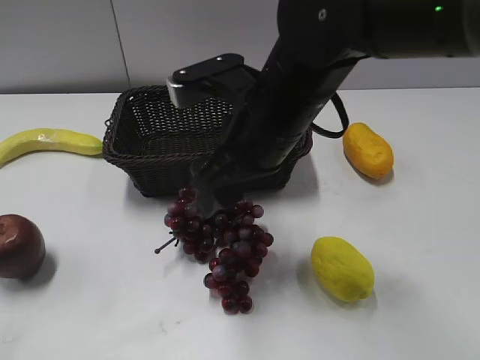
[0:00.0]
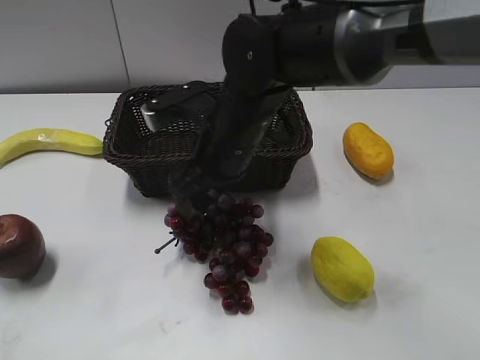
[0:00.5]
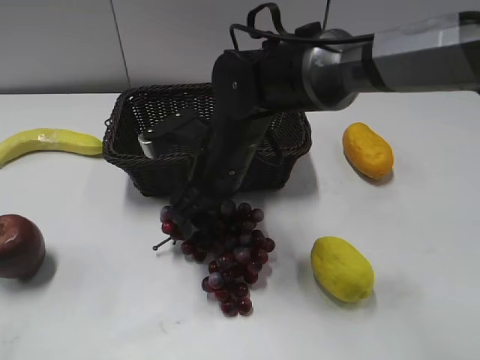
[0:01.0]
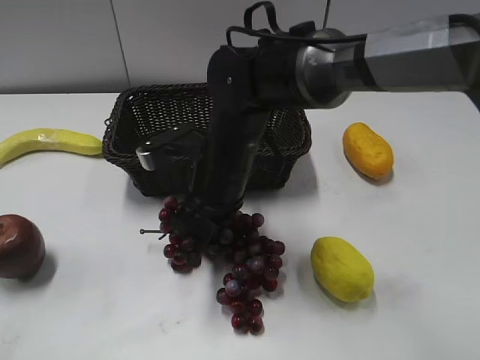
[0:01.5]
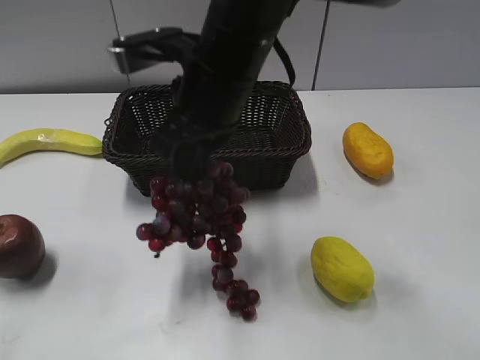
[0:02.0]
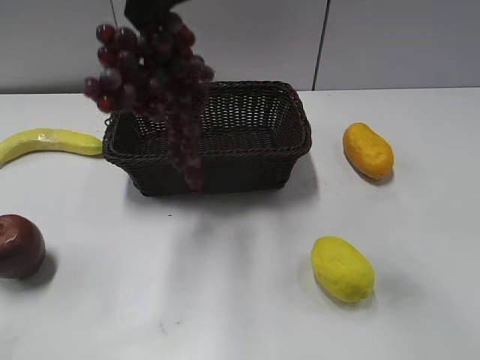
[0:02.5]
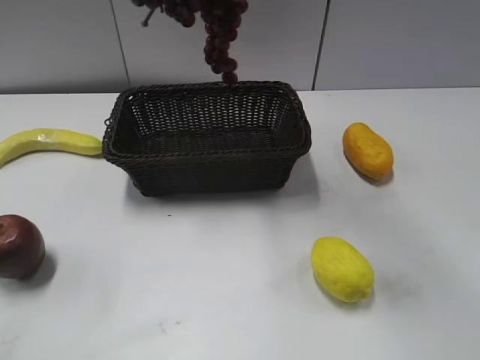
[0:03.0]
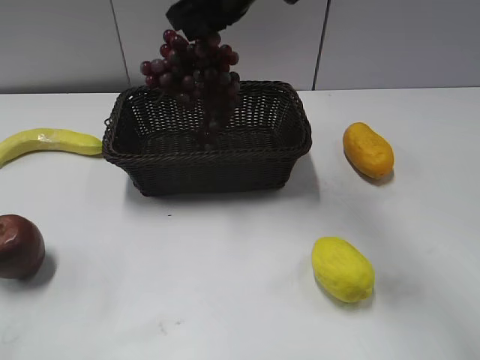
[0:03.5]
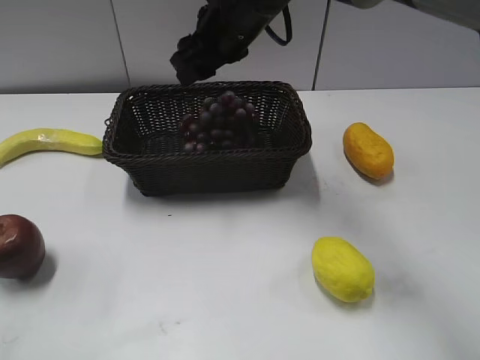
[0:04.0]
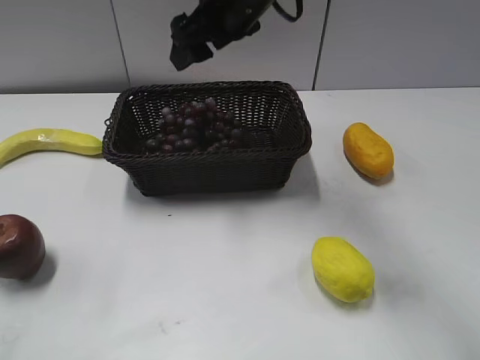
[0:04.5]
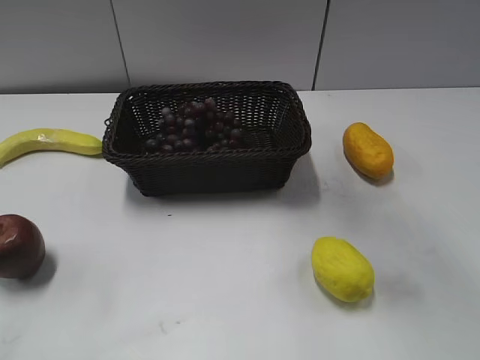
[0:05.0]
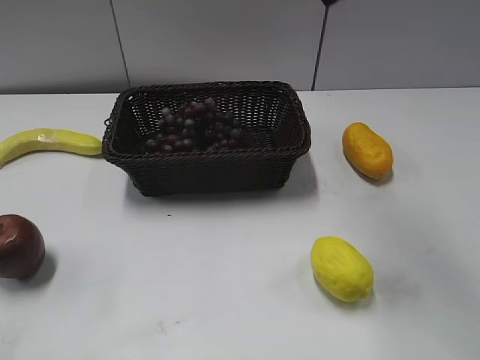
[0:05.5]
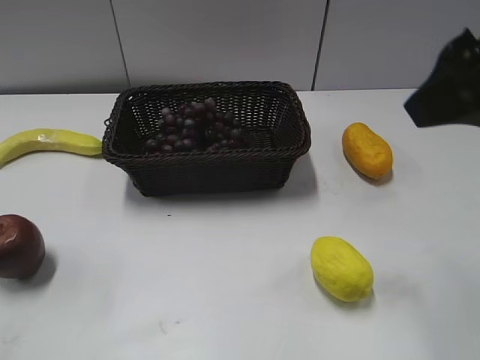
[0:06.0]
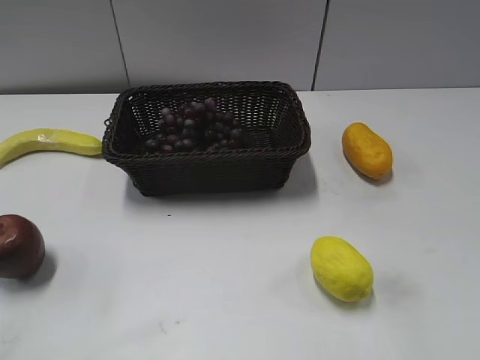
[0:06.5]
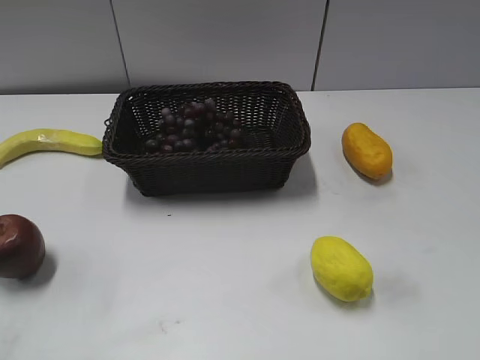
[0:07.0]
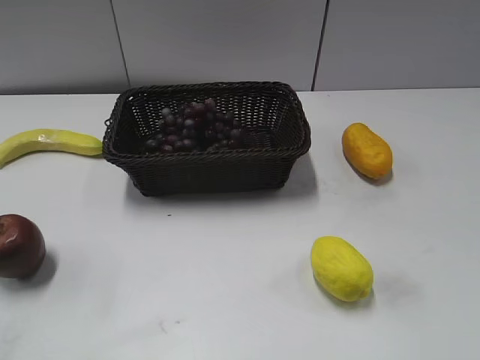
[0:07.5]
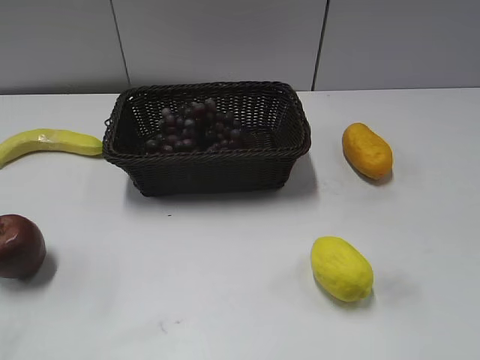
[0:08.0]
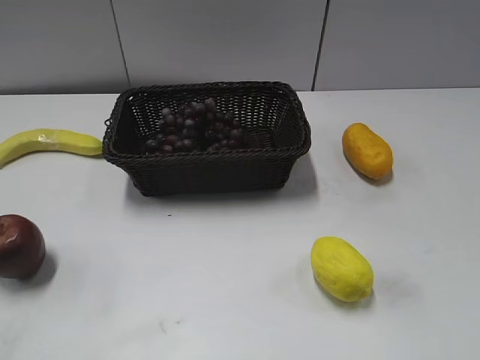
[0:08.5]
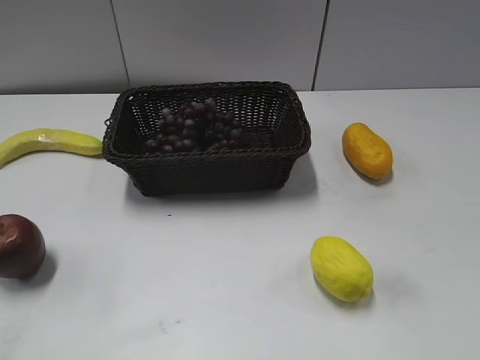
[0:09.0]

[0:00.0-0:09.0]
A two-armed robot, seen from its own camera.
Step, 0:02.0 to 0:04.0: Place the grape in the basket with right gripper.
0:00.0 to 0:02.0: The right gripper goes downward and returns, approximately 10 cm each way, and closes.
0:02.0 to 0:04.5: The right gripper goes up and down, roughly 15 cm each way, reversing 2 times, and opens.
0:04.5 to 0:07.0: The right gripper is displaced backward and to the right by roughly 50 cm.

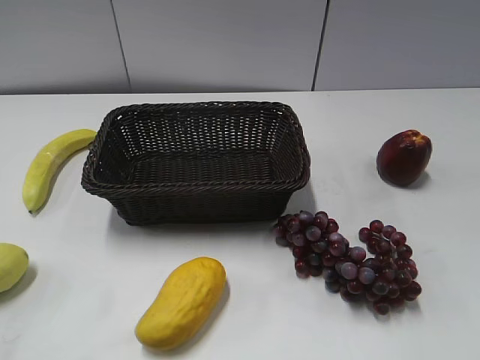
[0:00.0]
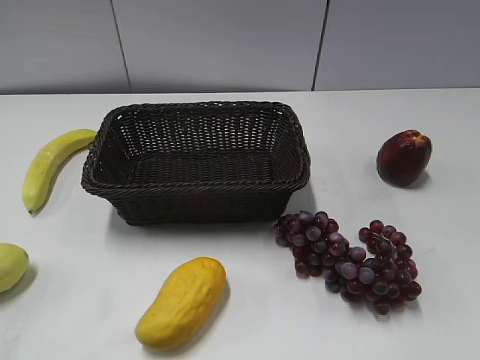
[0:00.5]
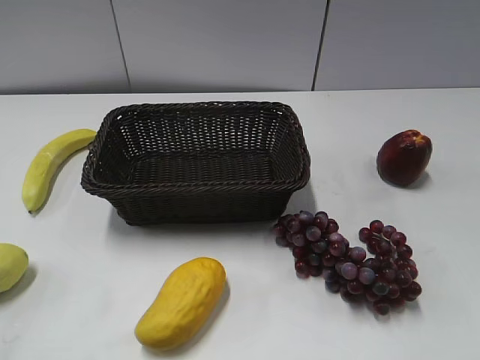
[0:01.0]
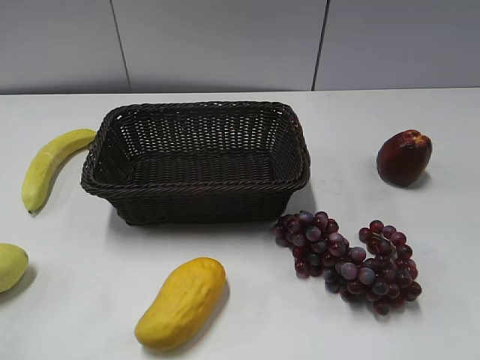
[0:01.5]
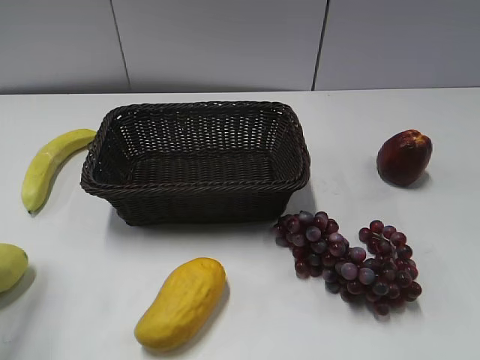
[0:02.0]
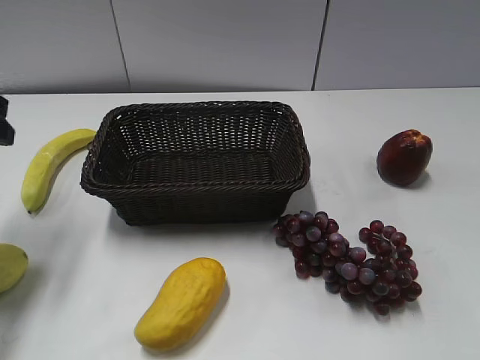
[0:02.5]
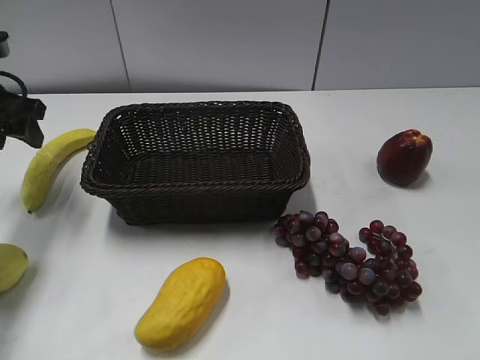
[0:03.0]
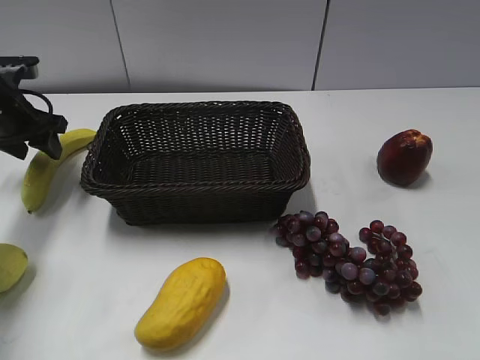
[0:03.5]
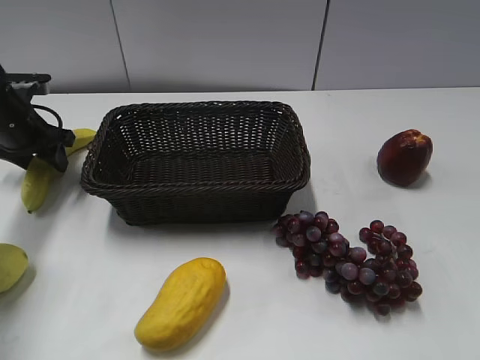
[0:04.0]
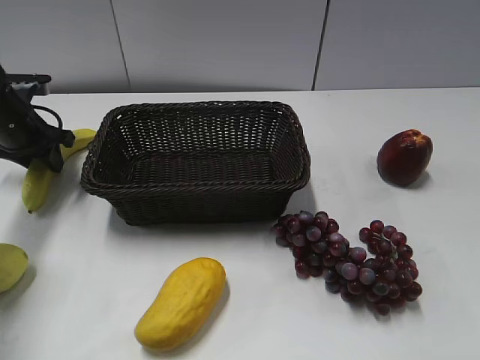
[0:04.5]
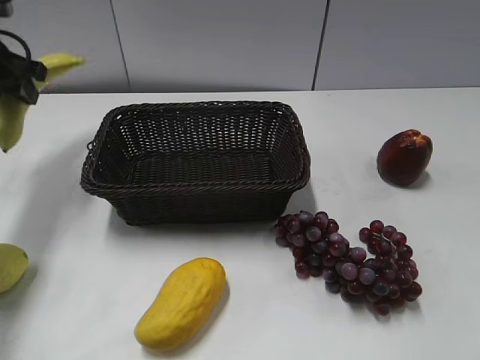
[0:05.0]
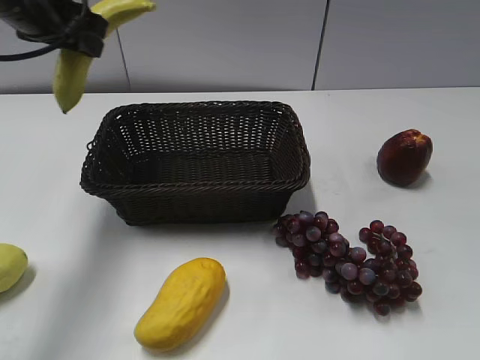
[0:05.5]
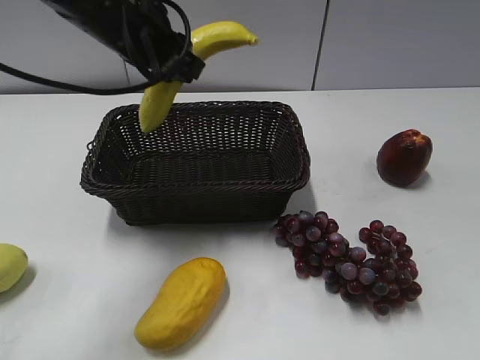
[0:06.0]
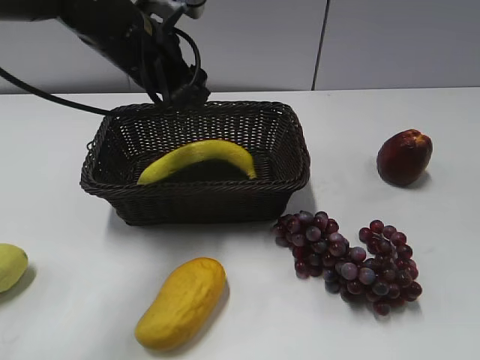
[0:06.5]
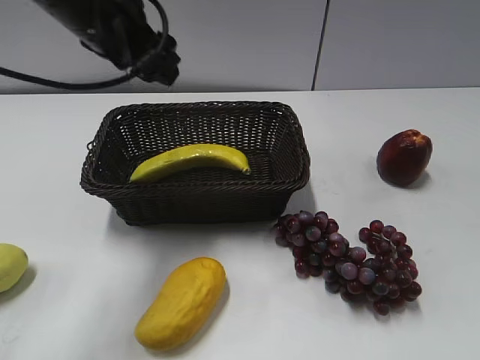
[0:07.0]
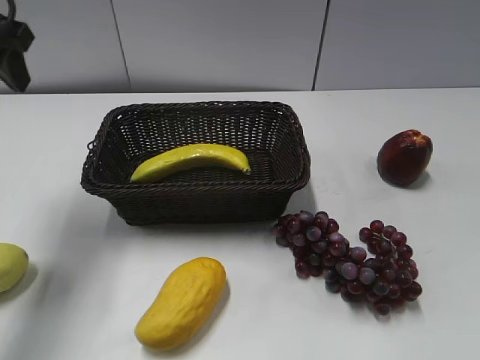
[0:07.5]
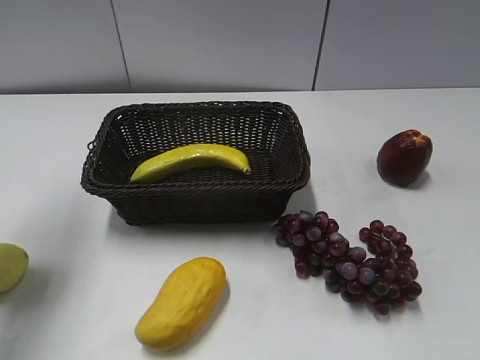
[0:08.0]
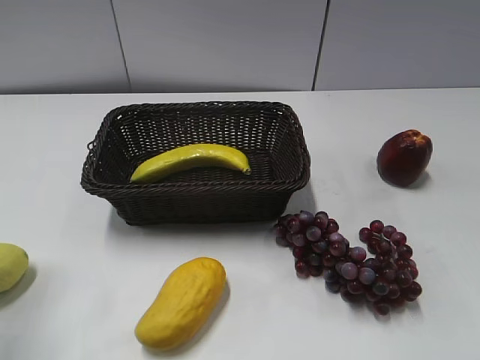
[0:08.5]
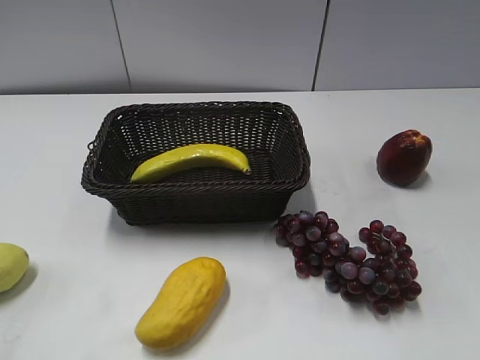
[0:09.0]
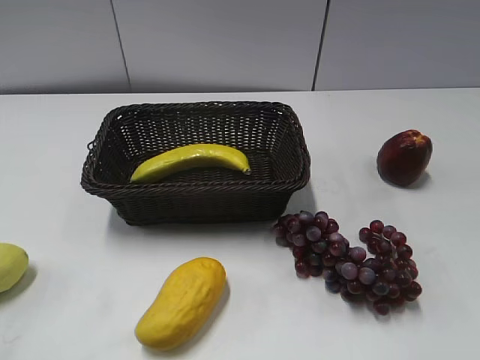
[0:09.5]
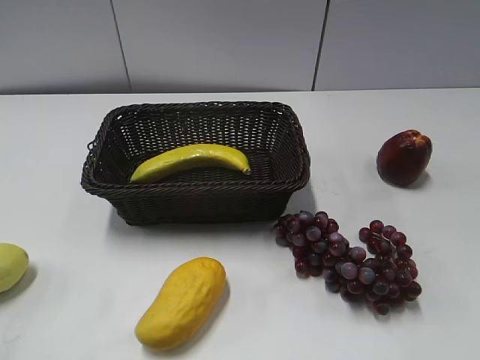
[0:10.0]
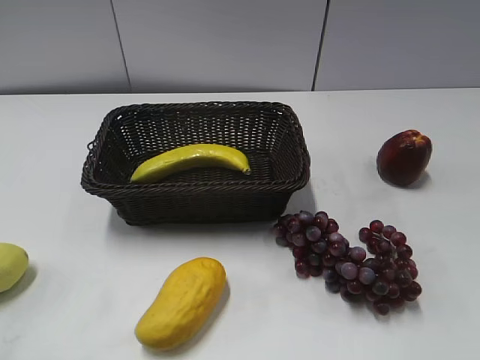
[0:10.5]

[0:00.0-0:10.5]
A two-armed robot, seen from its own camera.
Step, 0:02.5 to 0:04.0: Grasp the banana with left gripper.
Step, 0:04.5 to 0:06.5: Place the banana in the basket with left gripper.
0:02.0 to 0:04.0: The left gripper heads forward and downward, covering roughly 30 cm.
0:04.0 to 0:06.5: The left gripper heads to the right and upward, covering approximately 25 cm, and closes, then reopens.
0:06.5 to 0:08.5: The left gripper travels backward and to the left by roughly 30 cm.
0:08.5 to 0:10.5: The left gripper goes some 15 cm backward.
